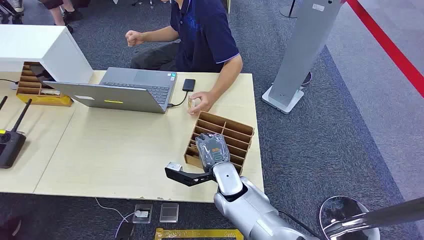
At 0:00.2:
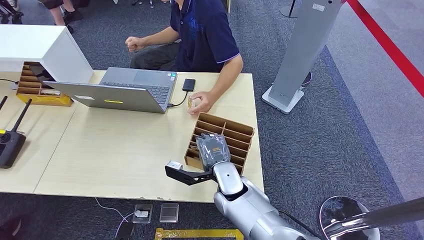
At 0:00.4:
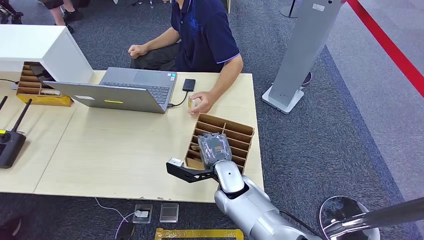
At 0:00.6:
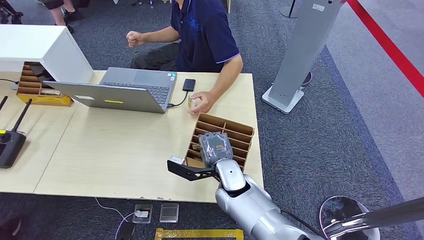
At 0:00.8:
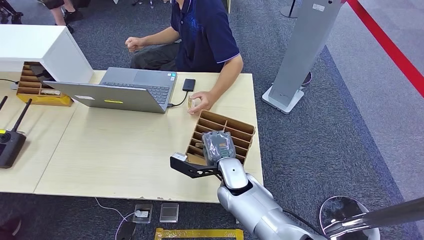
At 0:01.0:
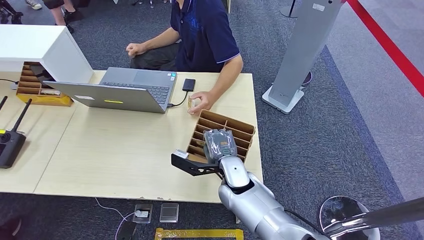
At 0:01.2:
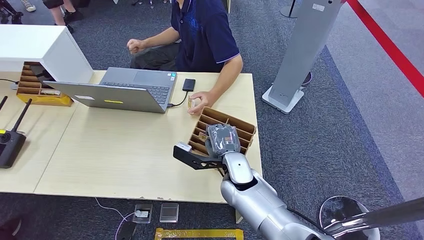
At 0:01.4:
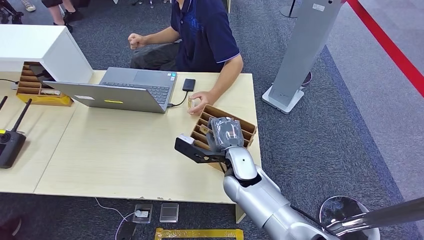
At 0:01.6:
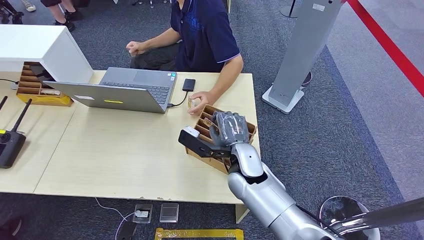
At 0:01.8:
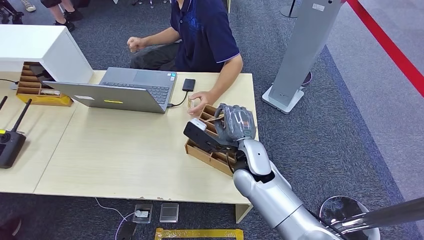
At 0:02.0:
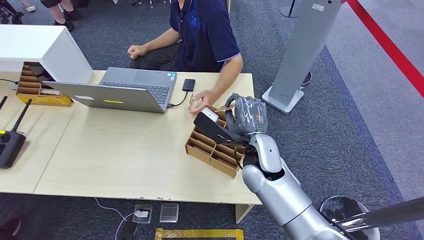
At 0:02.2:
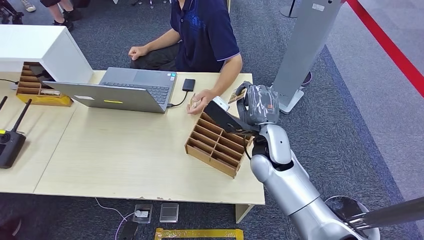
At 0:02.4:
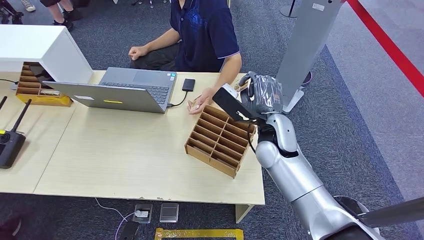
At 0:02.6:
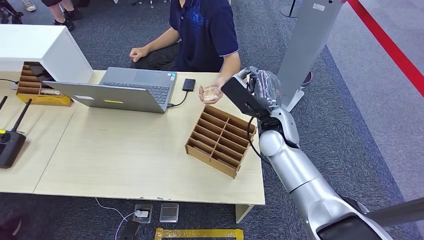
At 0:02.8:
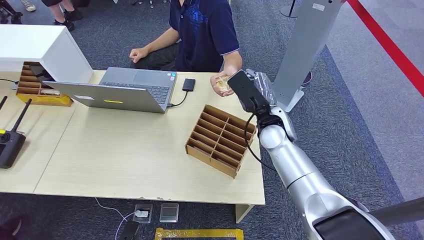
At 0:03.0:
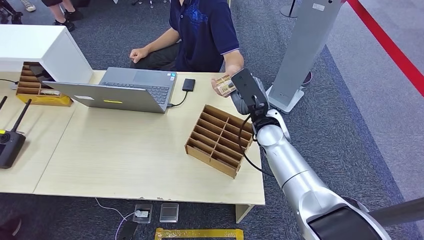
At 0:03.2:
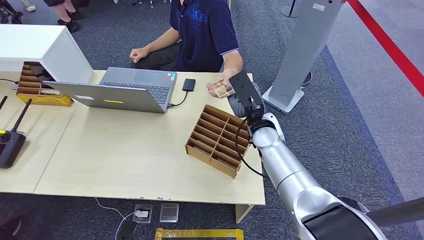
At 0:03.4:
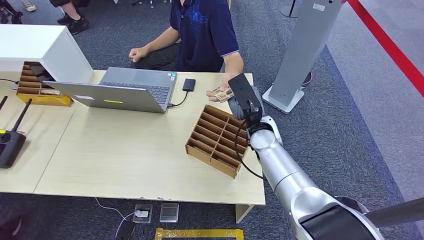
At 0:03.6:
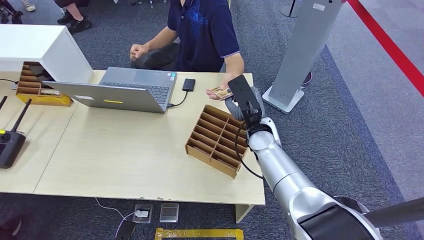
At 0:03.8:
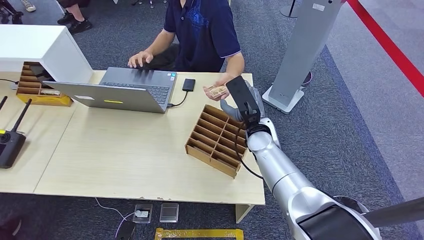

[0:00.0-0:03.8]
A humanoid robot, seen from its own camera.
Step, 0:00.0 to 0:01.4: Pick up the room card from the card holder.
Step, 0:03.4 to 0:03.8: Hand the room card to the target.
0:01.2 to 0:02.6: The right hand moves upward, to the right and forward, about 15 cm.
